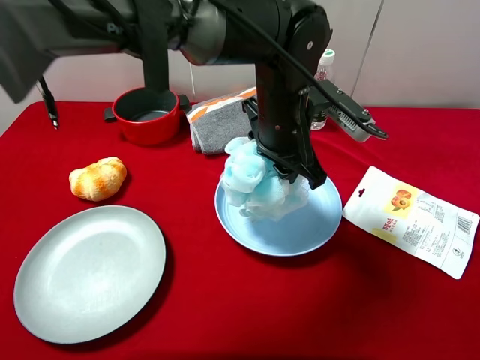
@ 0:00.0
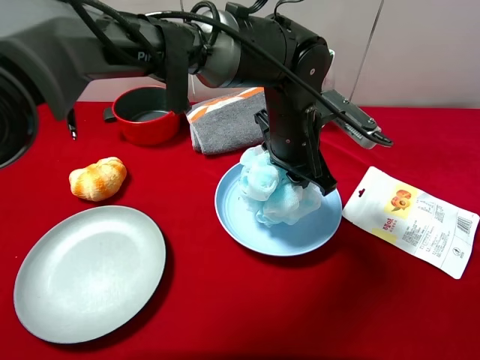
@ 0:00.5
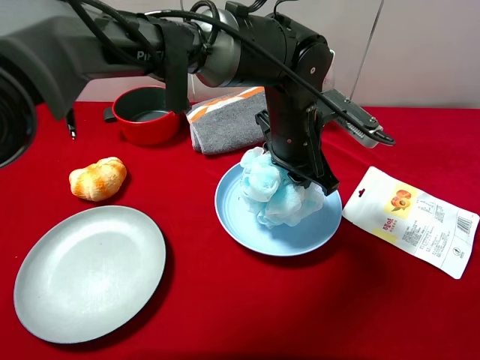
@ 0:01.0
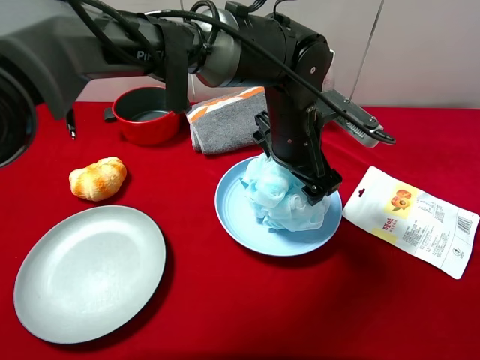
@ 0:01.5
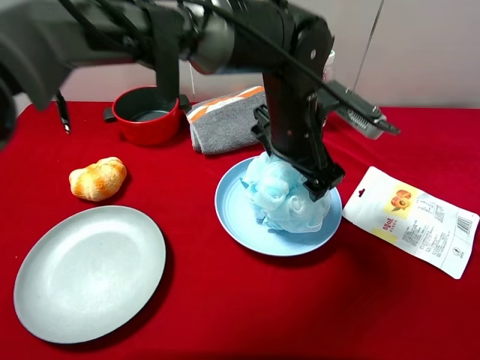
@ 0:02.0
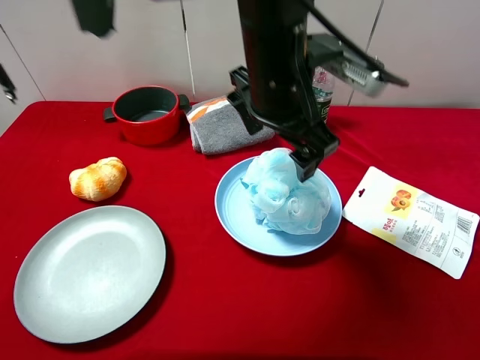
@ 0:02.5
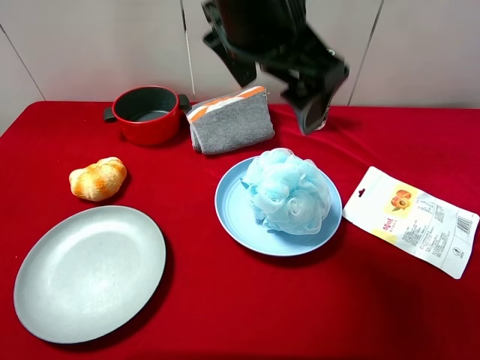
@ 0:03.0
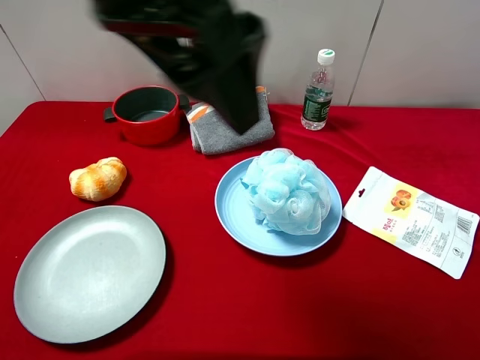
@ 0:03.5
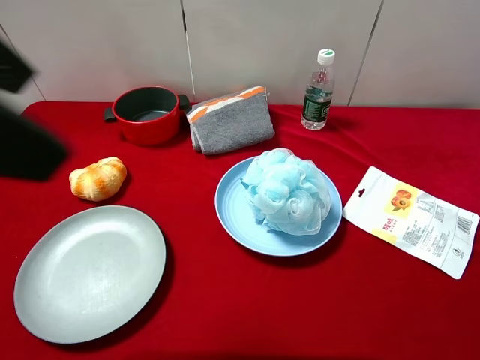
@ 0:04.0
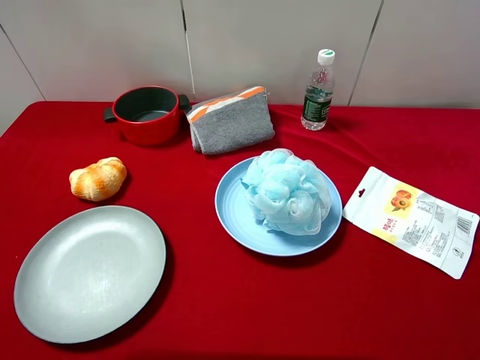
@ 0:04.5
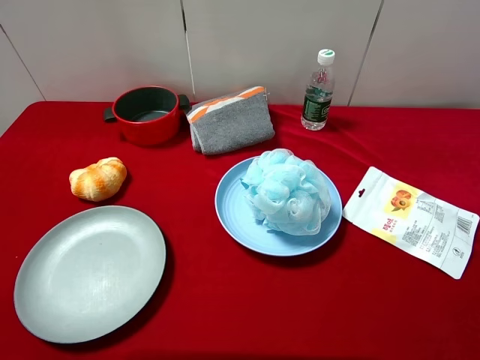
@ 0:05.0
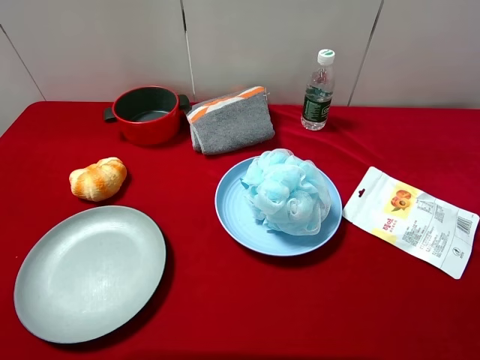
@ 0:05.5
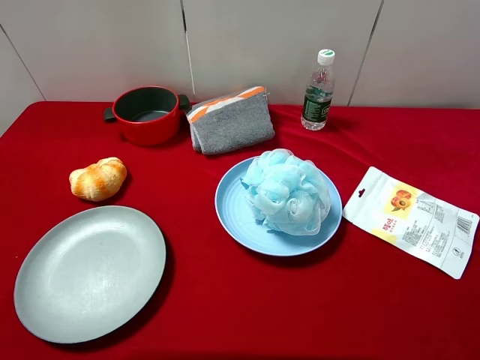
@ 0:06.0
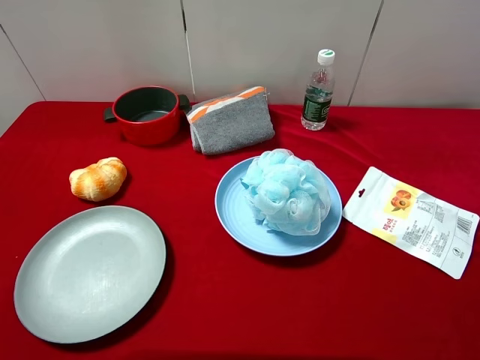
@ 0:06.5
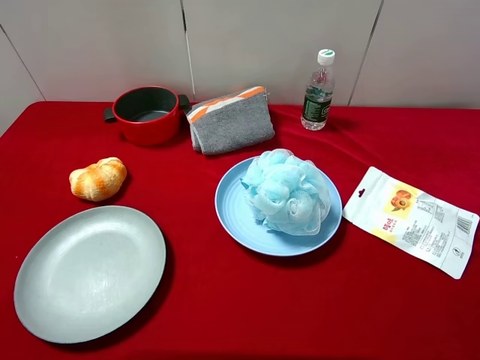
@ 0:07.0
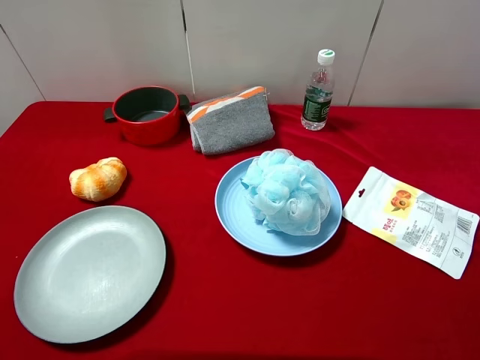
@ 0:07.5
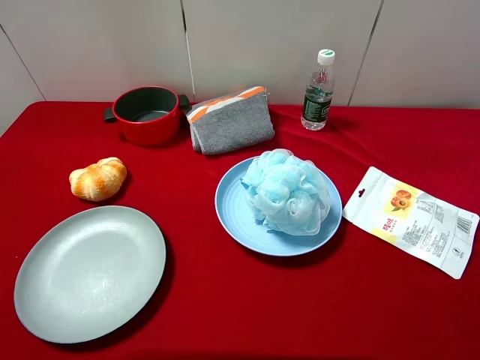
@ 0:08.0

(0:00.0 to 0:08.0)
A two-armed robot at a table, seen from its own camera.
Task of the whole recording: pick up an item with a gripper and place it in a random container on the desktop.
0:00.0 - 0:02.0: The left gripper opens its fingers.
0:02.0 - 0:04.0: The left gripper goes approximately 40 cm to the left, upward and backward.
0:04.0 - 0:06.0: The left gripper is displaced downward, to the left and backward by approximately 20 cm.
0:06.0 - 0:08.0: Both grippers stay about where they are.

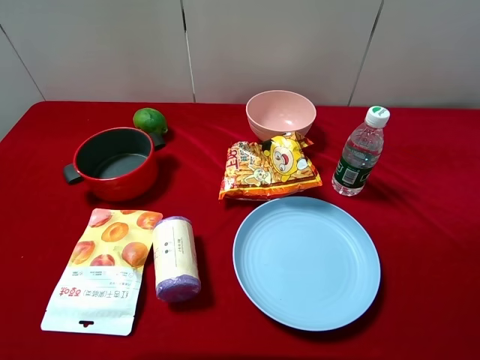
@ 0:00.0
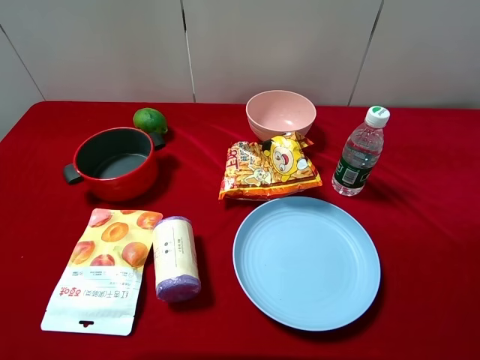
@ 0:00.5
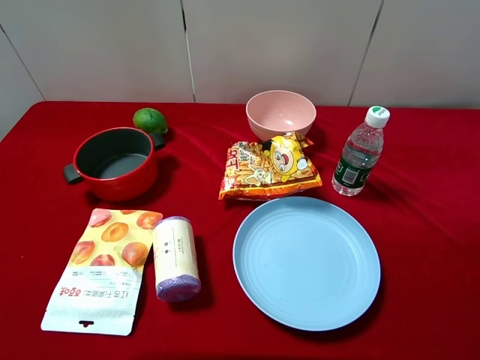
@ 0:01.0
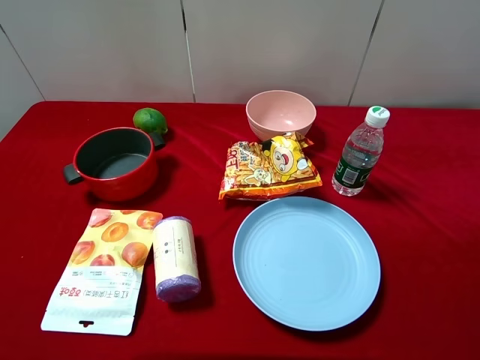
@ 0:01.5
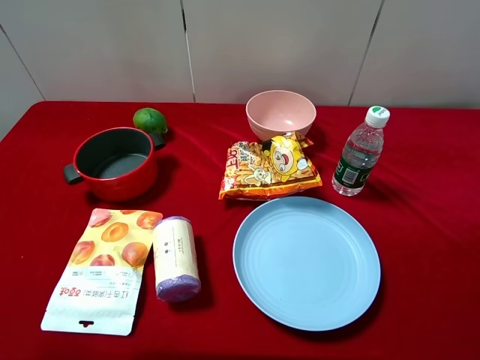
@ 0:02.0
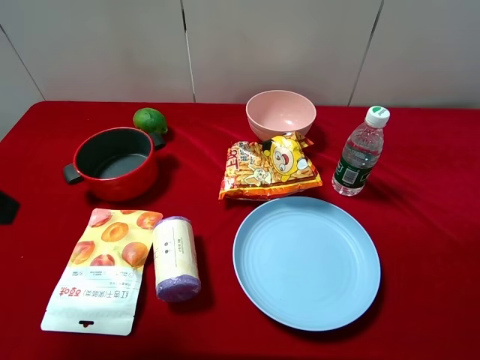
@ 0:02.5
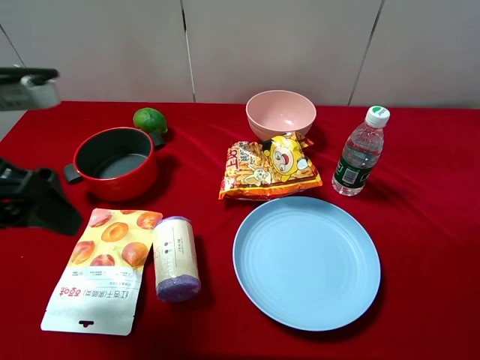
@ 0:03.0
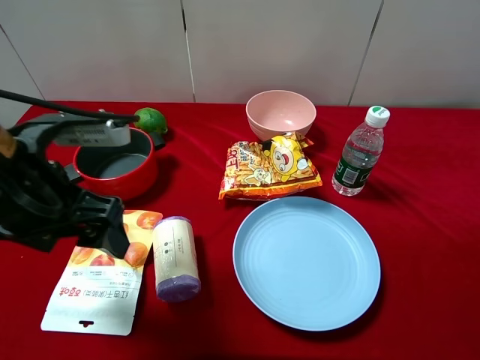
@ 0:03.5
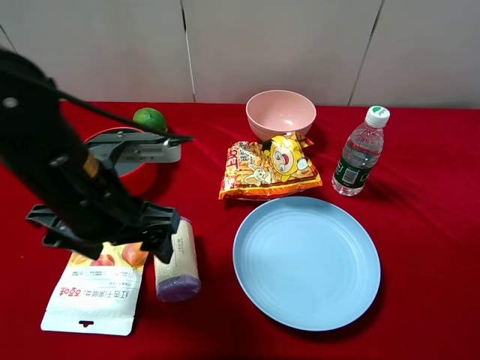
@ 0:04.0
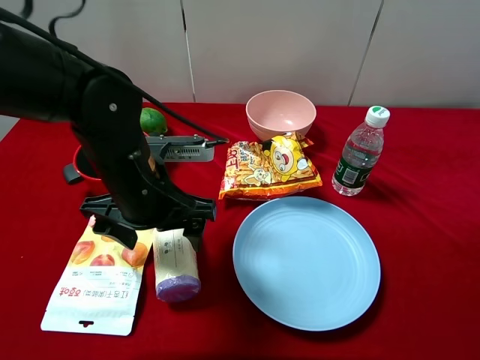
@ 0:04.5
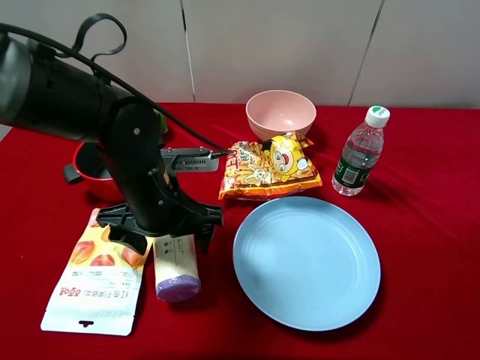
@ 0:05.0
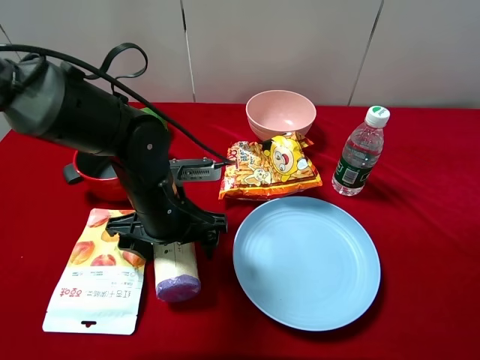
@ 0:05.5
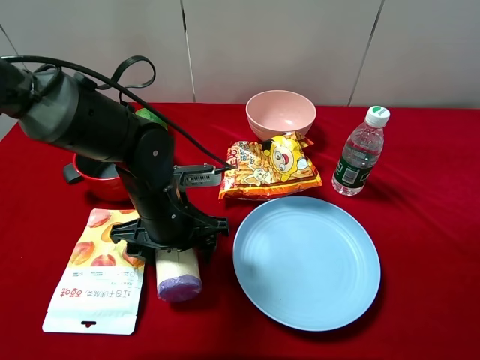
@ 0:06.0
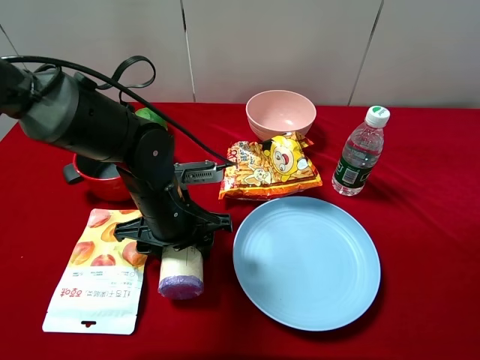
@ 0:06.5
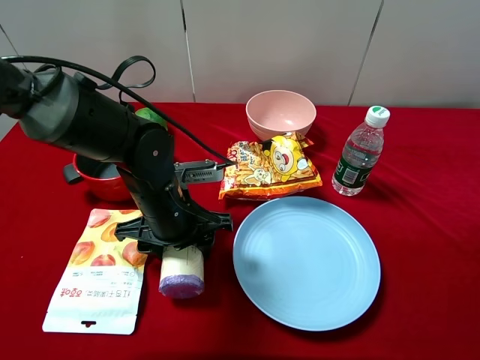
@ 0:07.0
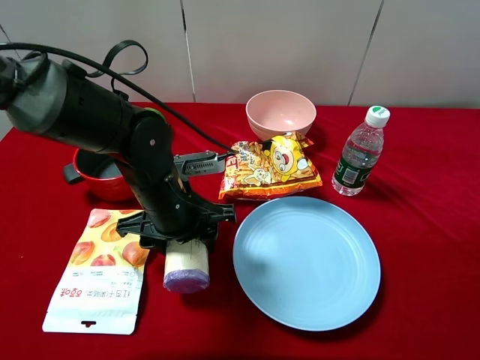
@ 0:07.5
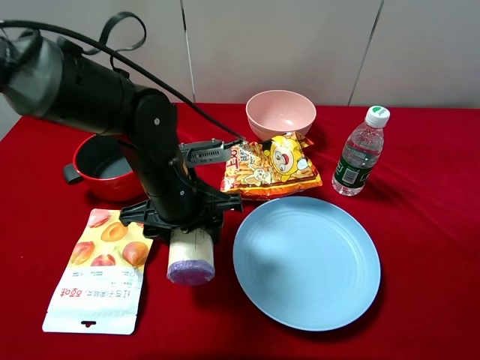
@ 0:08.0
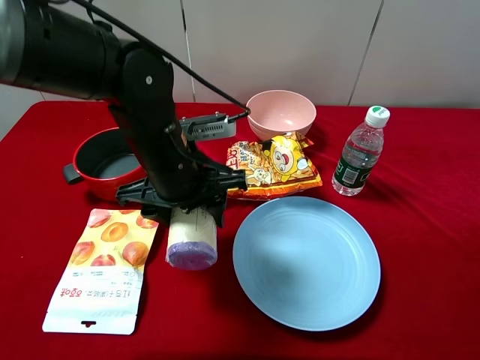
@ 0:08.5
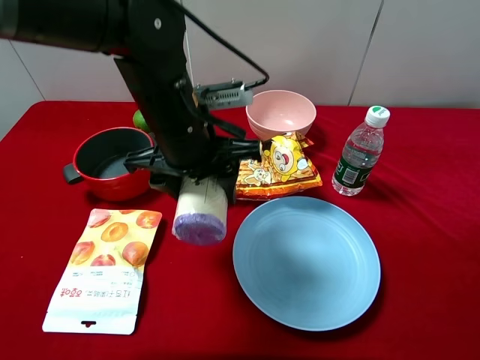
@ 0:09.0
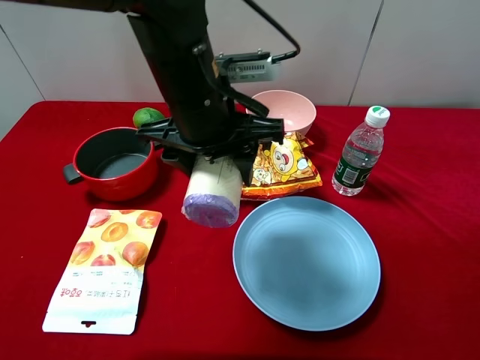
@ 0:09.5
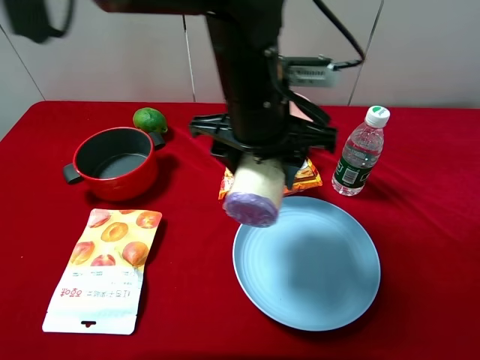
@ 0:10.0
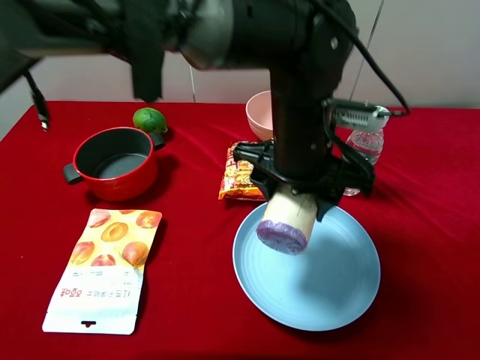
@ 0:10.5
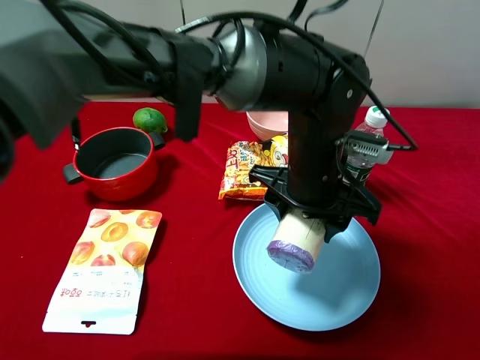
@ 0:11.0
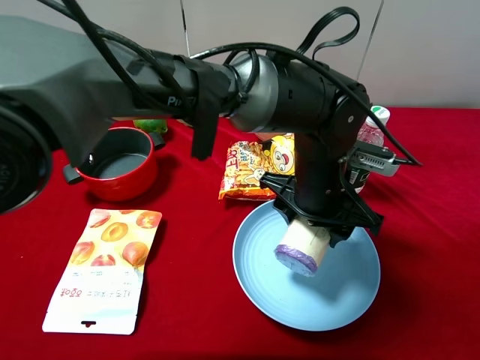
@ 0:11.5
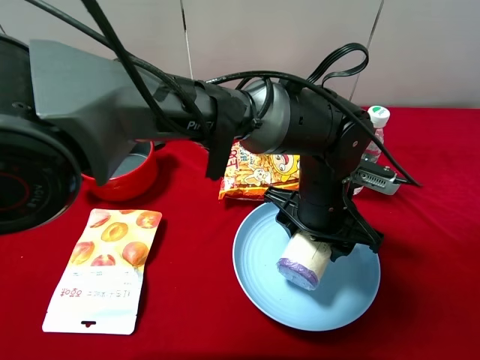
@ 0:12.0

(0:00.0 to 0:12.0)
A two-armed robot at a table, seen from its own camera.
Task of the whole recording: pick up an item with a gripper and place it in a random container on the desktop.
0:02.0 - 0:04.0: The left gripper goes some 20 cm to the right, downward and forward.
0:04.0 - 0:06.0: The left gripper goes roughly 10 cm downward, and closes up.
0:06.0 - 0:08.0: The grippers make only small movements.
0:08.0 - 0:10.0: The left gripper moves upward and to the right, some 15 cm.
0:10.0 - 0:12.0: The left gripper goes approximately 15 cm downward and to the right.

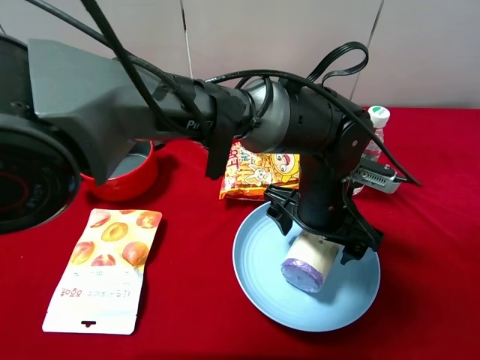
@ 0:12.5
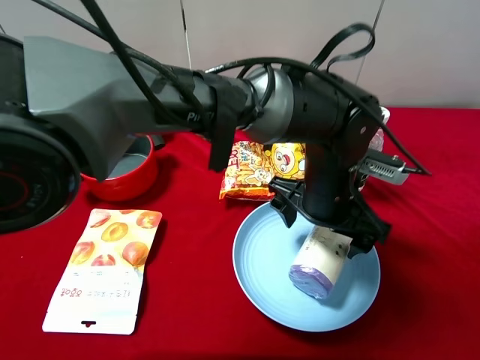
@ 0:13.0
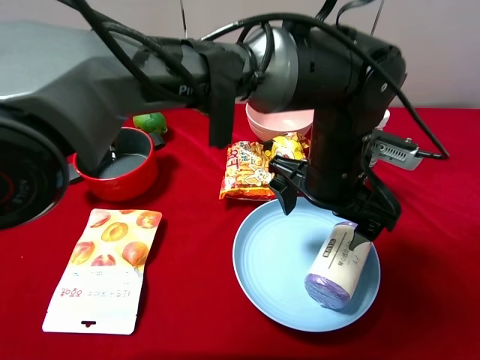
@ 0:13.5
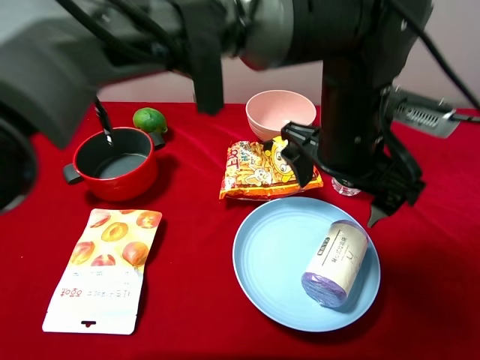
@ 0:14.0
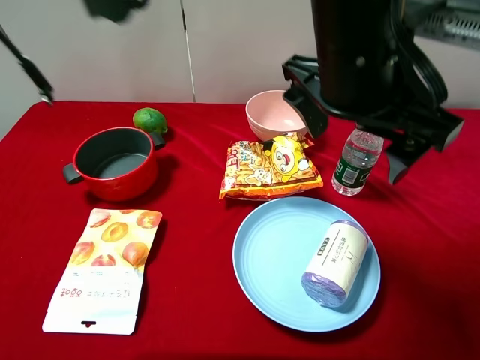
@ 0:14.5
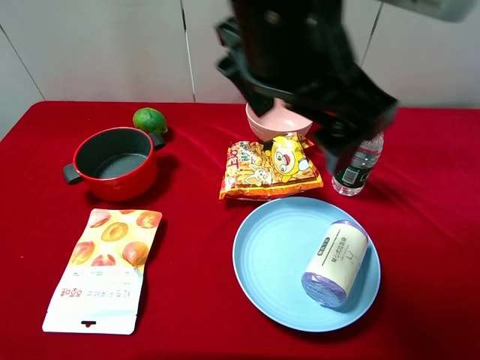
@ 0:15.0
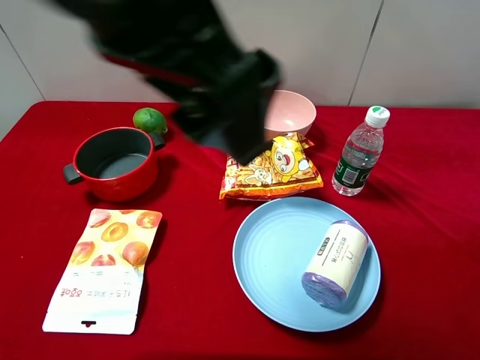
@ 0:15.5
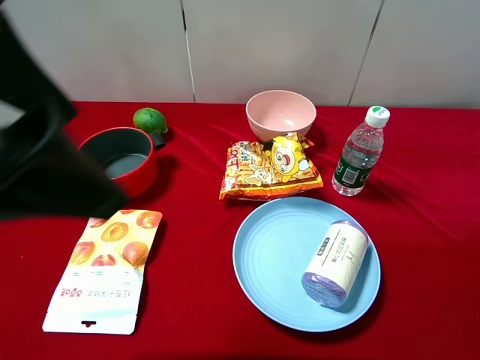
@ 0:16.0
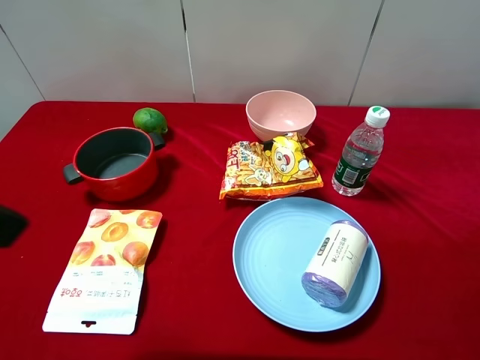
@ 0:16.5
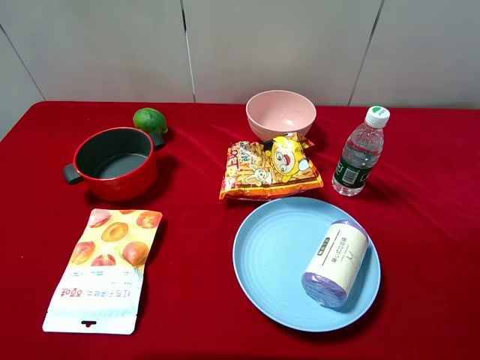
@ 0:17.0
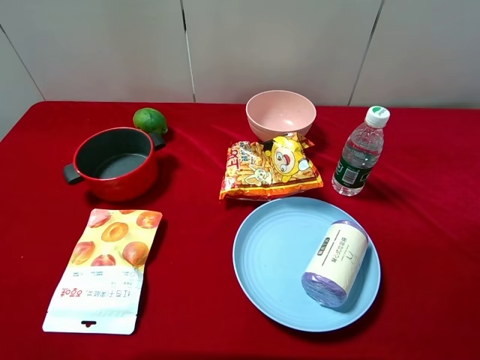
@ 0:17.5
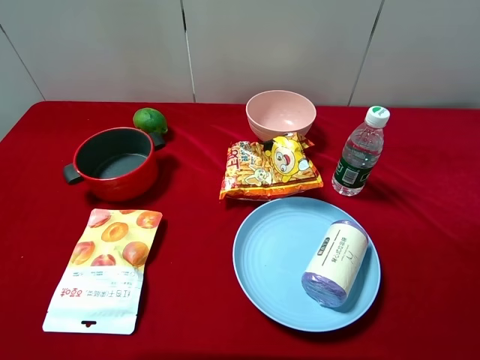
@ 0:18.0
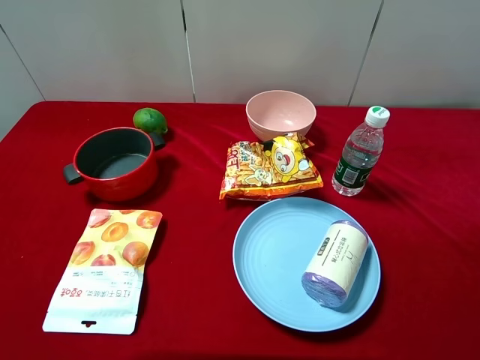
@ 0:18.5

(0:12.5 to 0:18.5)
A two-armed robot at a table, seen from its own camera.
Task of the whole recording: pick up an item with a gripper and place it in a random container on the desktop.
0:12.5 - 0:14.5: The left gripper goes some 20 cm upward.
0:14.5 - 0:16.5: The left gripper moves to the left and backward, roughly 35 cm.
